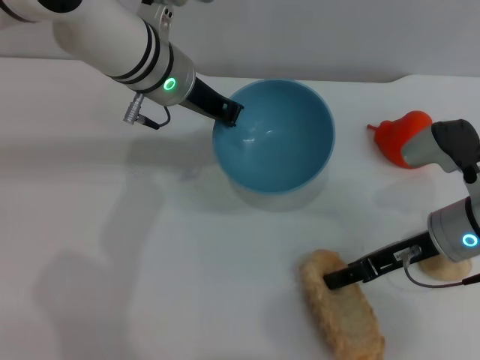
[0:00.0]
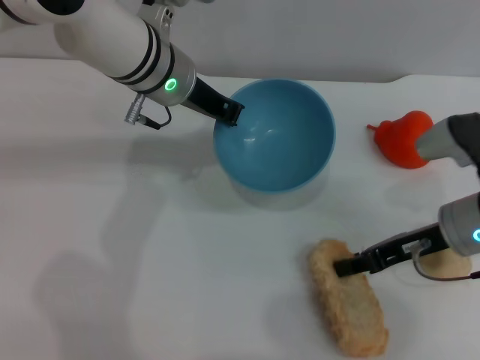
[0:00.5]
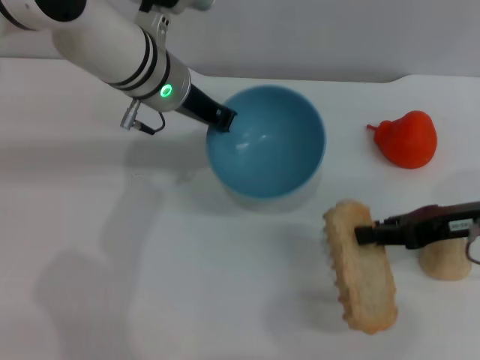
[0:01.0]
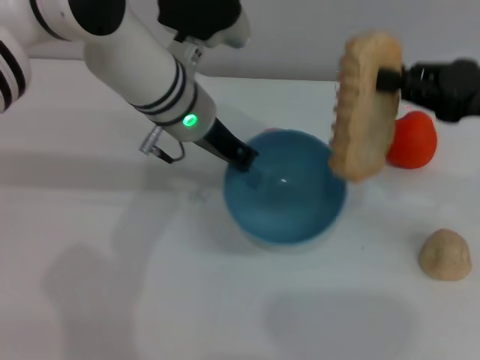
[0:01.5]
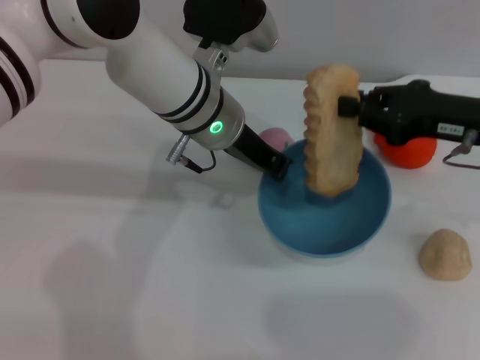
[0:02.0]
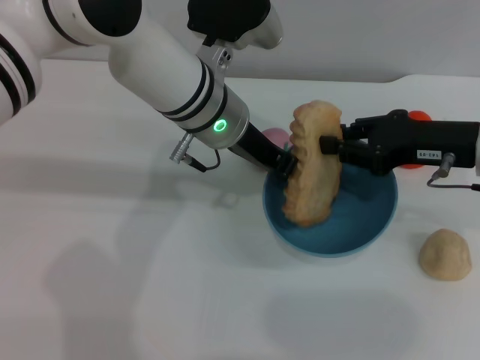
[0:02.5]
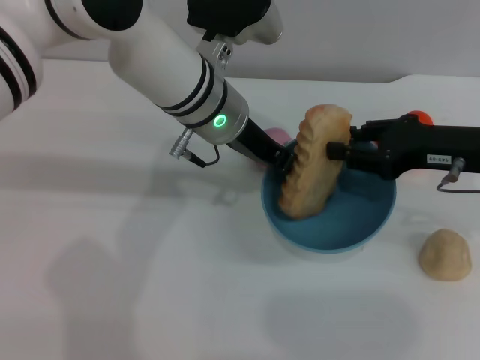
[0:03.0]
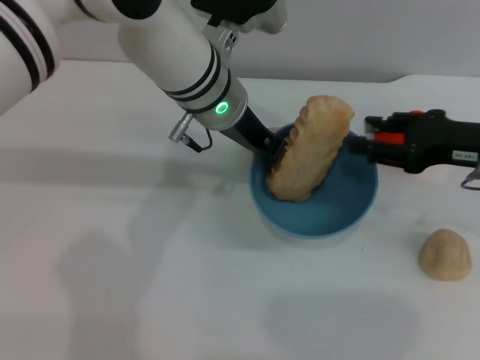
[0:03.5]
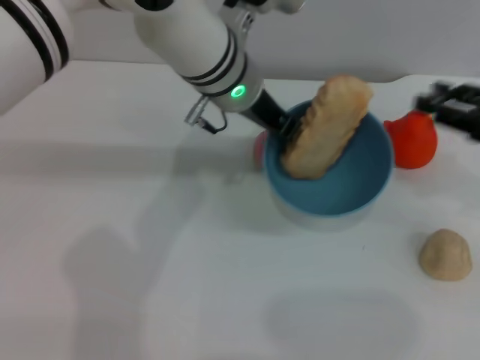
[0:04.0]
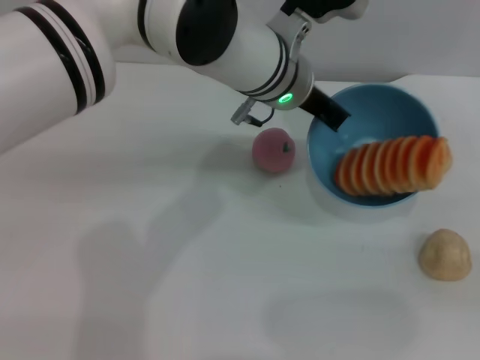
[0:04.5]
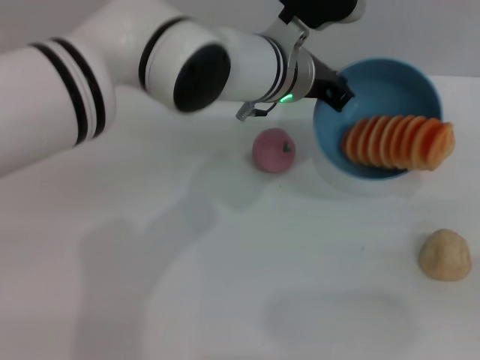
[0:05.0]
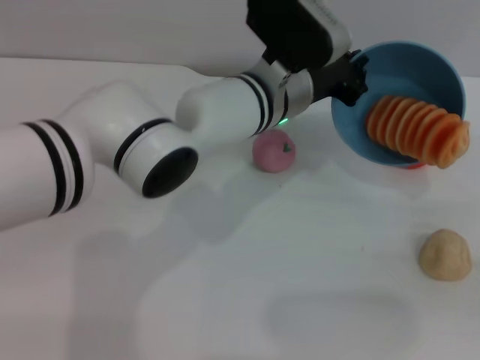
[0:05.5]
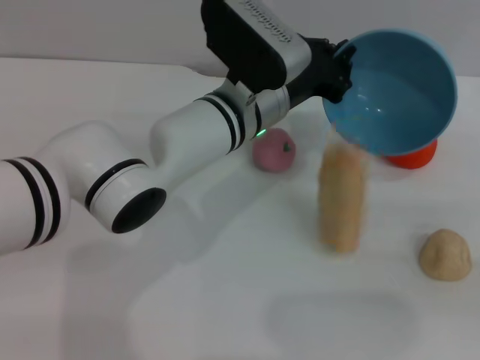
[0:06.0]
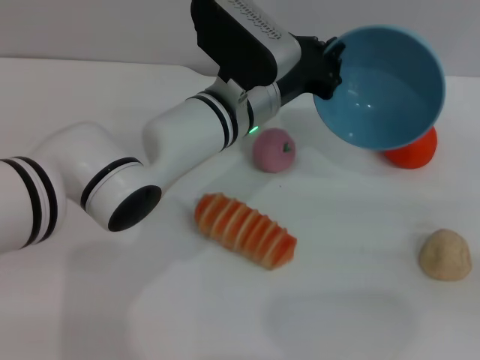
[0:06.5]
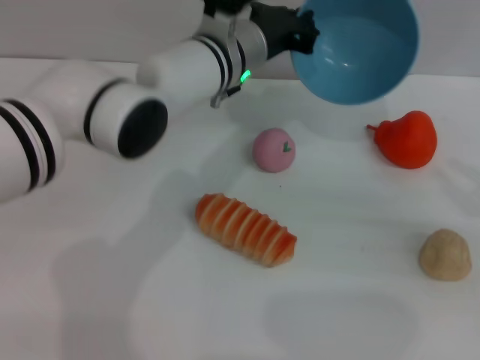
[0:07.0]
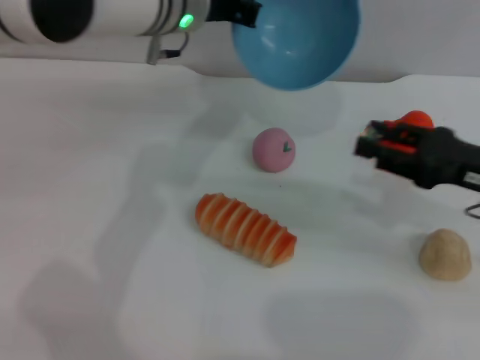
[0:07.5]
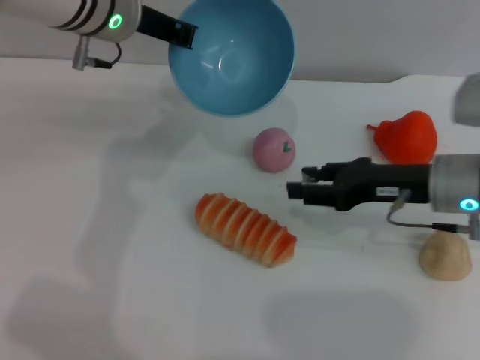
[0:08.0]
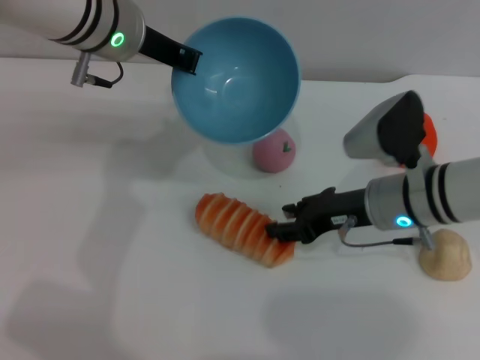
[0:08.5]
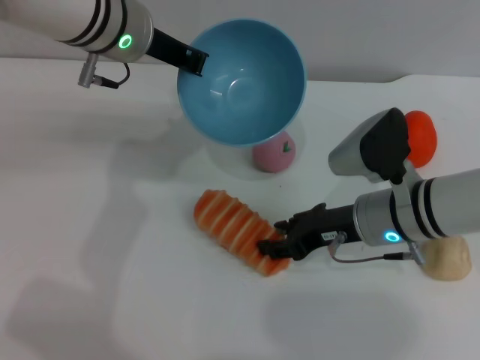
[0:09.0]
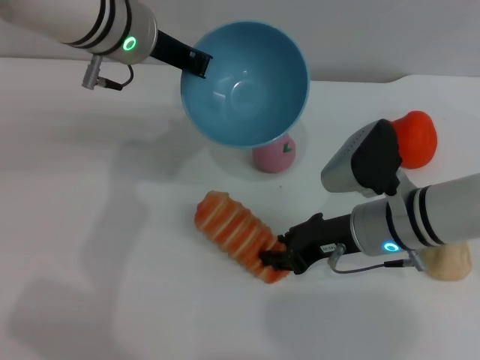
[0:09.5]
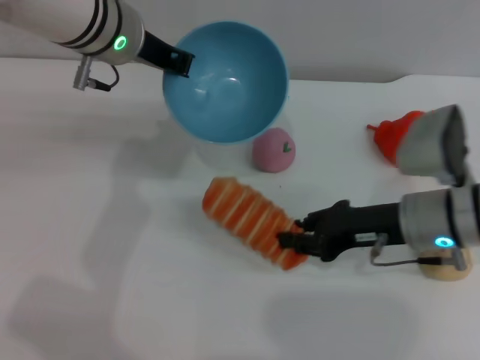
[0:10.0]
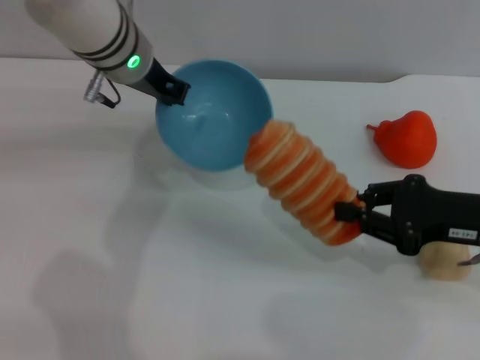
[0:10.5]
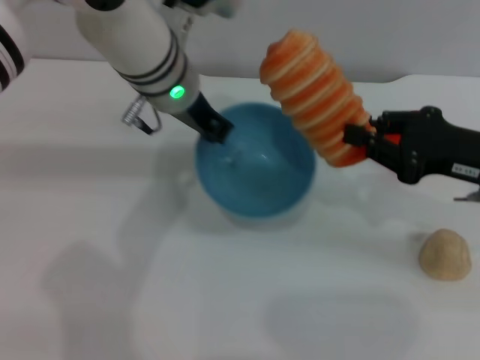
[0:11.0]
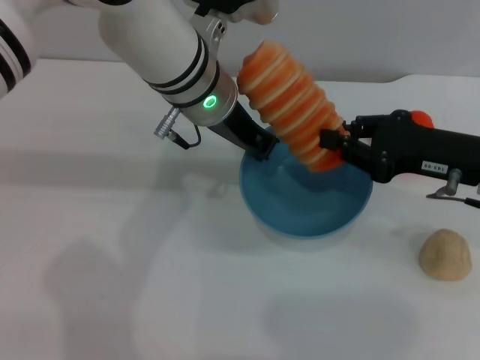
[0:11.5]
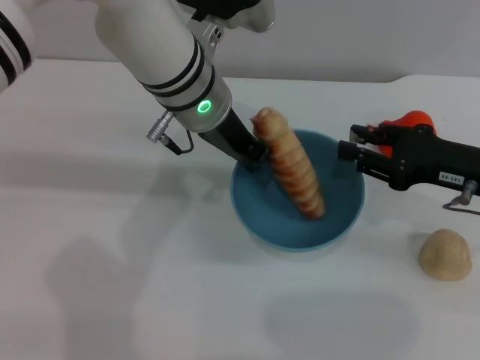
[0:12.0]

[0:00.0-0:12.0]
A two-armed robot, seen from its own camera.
Task of the whole recording: put the bread into the blue bowl and pour it out repeatedly.
Step, 0:01.5 to 0:03.5: Place the bread into the bowl.
Step, 0:04.0 to 0:06.5: Pour the bread out of the bowl.
Step, 0:07.0 to 0:10.0: Pick up the bread with the right gripper.
0:00.0 to 0:02.0: The right gripper heads upward, covering about 10 cm, and closes its fingers. The left gripper changes place by some 5 cm.
0:02.0 to 0:04.0: The right gripper moves to the right, about 5 cm, and opens.
0:04.0 to 0:06.0: The right gripper shifts about 10 cm backward and to the right, while the left gripper travels downward by roughly 5 cm.
0:06.0 to 0:08.0: The left gripper heads to the left and upward, covering roughly 15 cm; the right gripper travels to the left and forward by about 20 cm.
0:08.0 to 0:10.0: The right gripper closes.
0:10.0 to 0:12.0: Both grippers travel together to the right, approximately 5 cm.

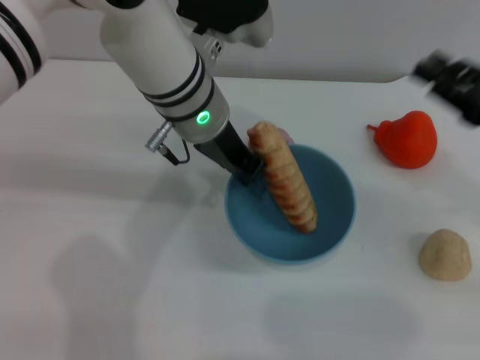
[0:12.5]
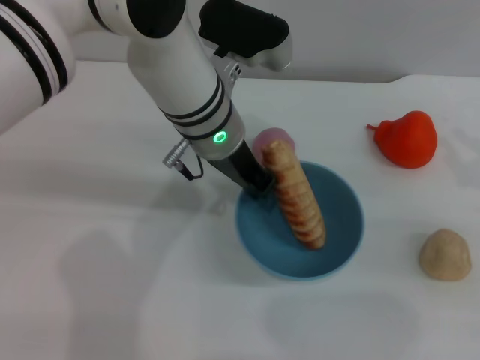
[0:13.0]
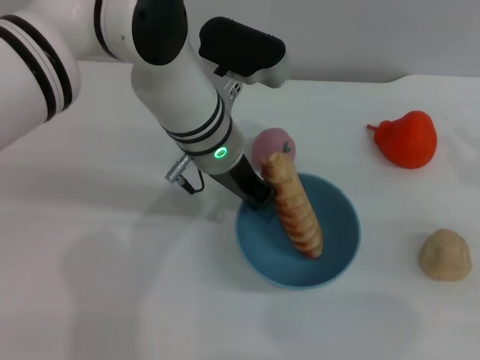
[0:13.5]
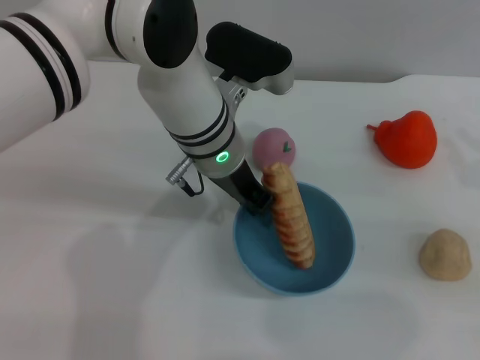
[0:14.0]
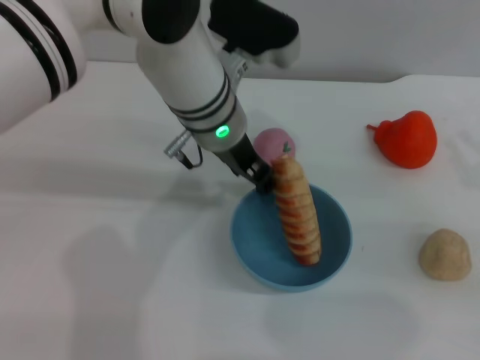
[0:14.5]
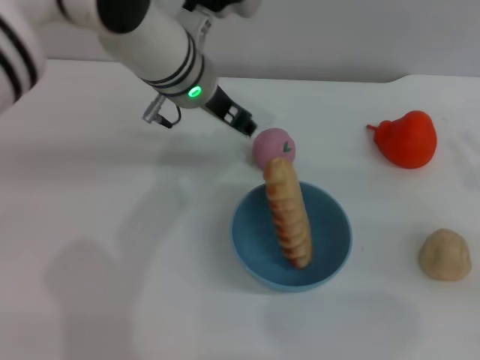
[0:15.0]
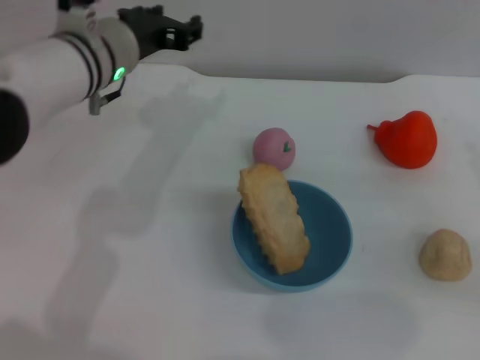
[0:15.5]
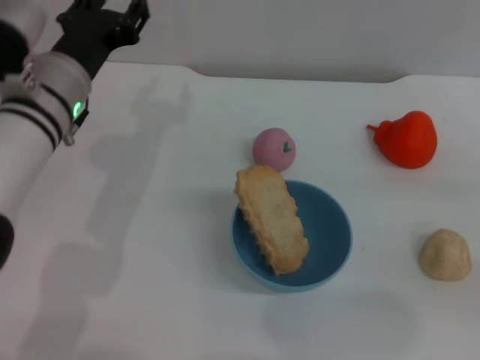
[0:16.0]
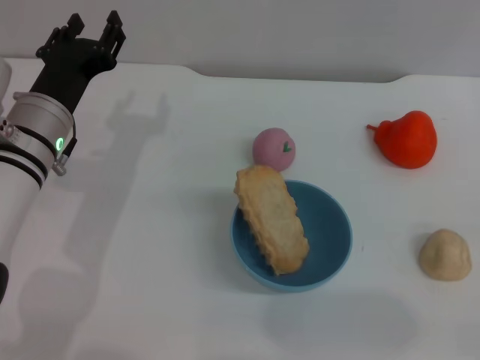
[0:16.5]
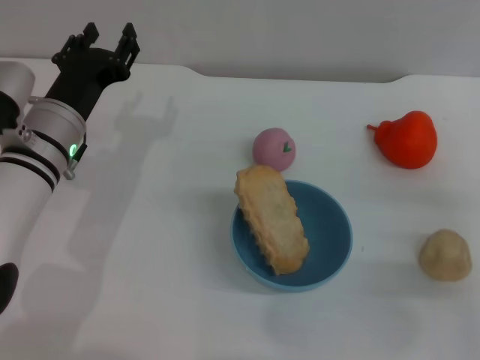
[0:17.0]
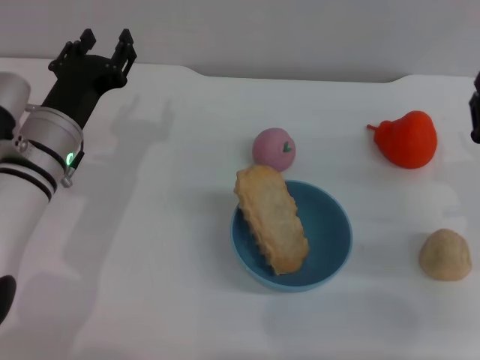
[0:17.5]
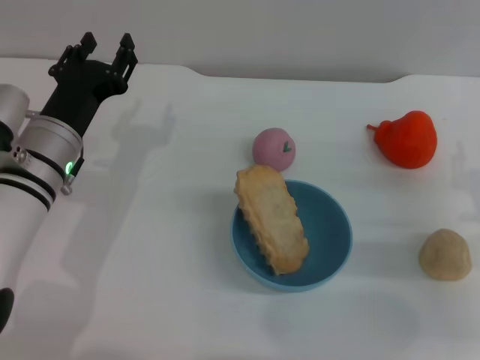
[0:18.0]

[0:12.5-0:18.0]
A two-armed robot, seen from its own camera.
Task of the whole recording: put the bread into the blue bowl and pour it out repeatedly.
Step, 0:12.5 to 0:15.0: Place the bowl on the table.
0:12.5 to 0:14.5: The left gripper opens. Meanwhile the right gripper ends up about 5 cm from where it was.
0:14.5 to 0:16.0: The left gripper moves to the left, some 15 cm, and opens its fingers. The right gripper goes some 5 cm to the right.
0:16.0 to 0:18.0: The left gripper moves downward, some 5 cm.
